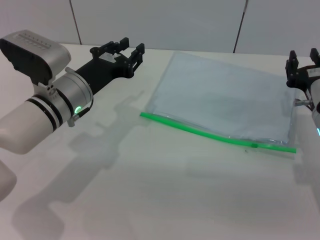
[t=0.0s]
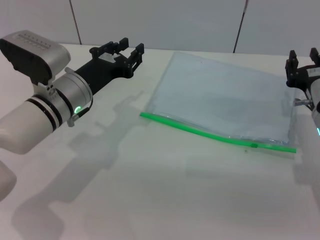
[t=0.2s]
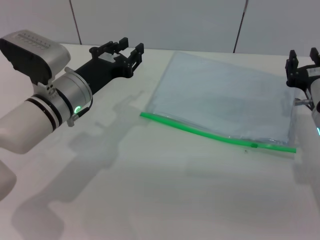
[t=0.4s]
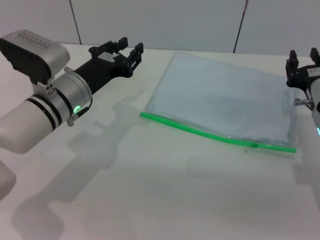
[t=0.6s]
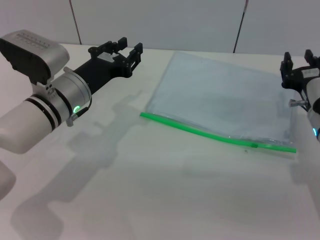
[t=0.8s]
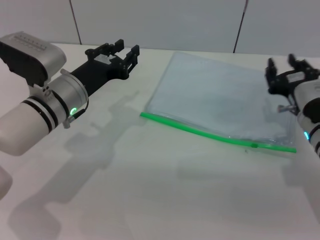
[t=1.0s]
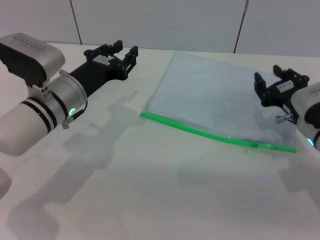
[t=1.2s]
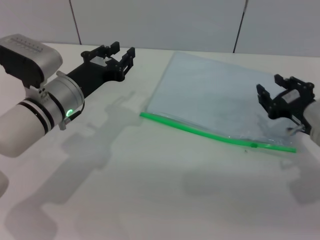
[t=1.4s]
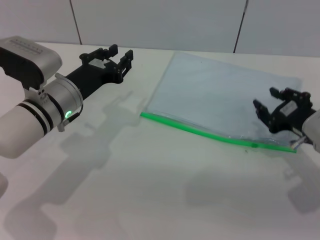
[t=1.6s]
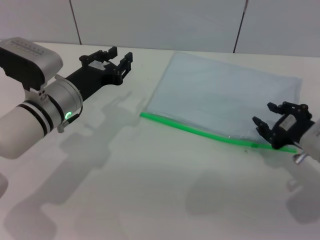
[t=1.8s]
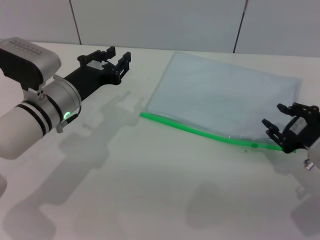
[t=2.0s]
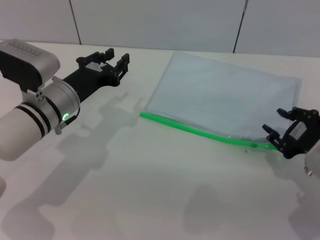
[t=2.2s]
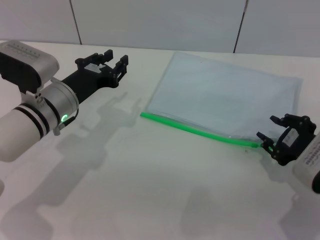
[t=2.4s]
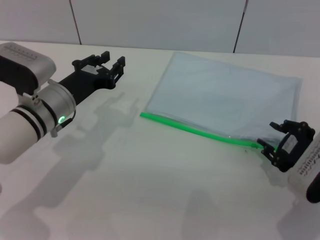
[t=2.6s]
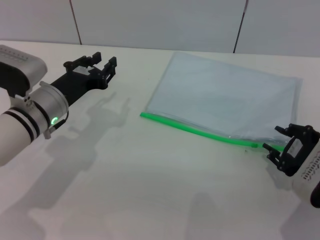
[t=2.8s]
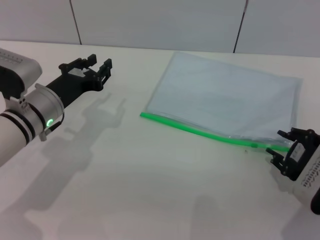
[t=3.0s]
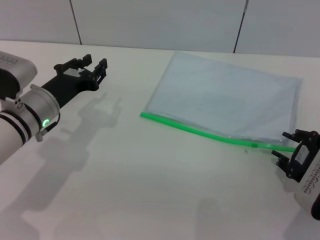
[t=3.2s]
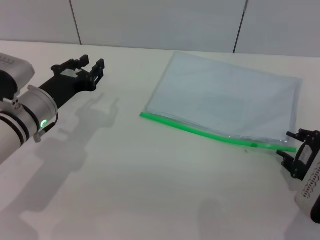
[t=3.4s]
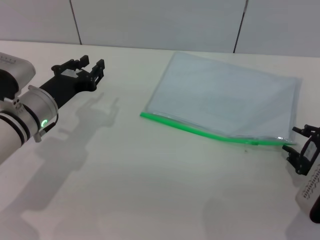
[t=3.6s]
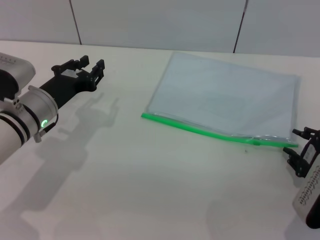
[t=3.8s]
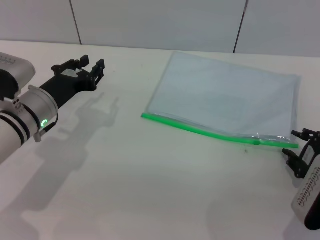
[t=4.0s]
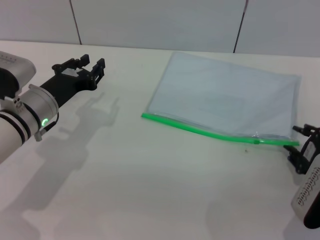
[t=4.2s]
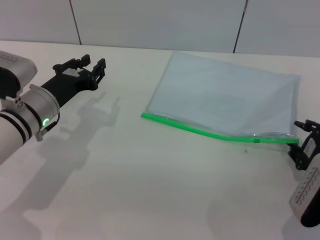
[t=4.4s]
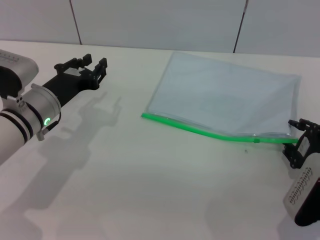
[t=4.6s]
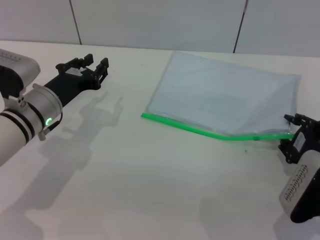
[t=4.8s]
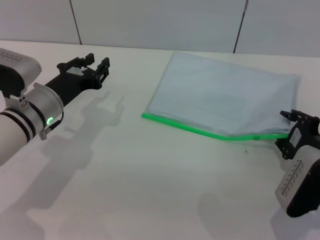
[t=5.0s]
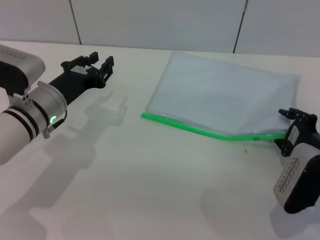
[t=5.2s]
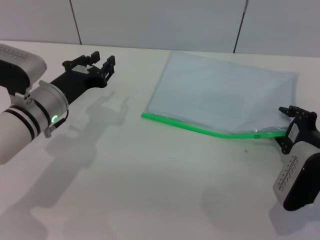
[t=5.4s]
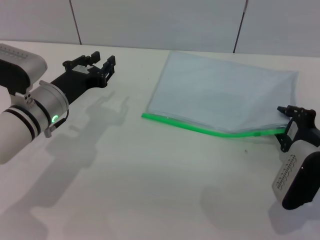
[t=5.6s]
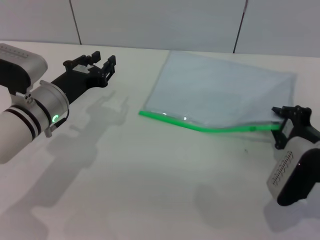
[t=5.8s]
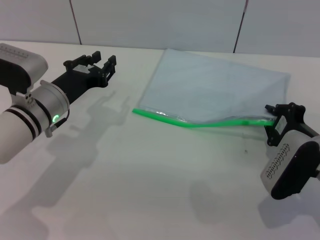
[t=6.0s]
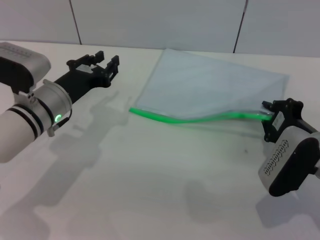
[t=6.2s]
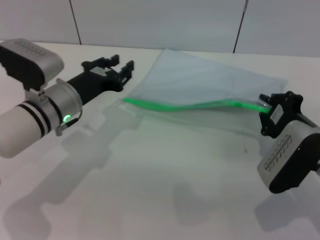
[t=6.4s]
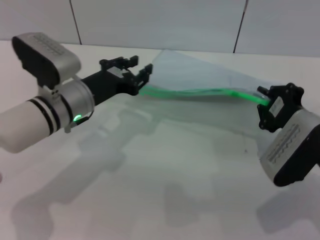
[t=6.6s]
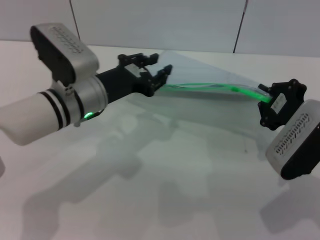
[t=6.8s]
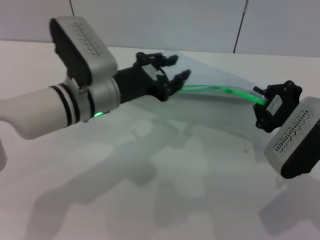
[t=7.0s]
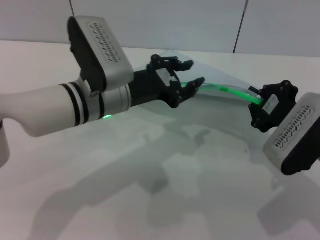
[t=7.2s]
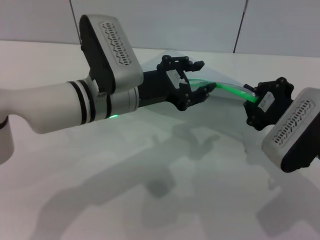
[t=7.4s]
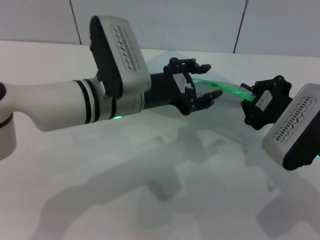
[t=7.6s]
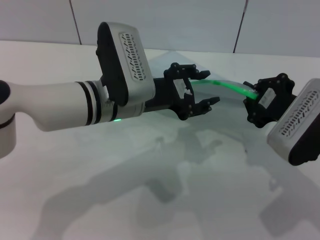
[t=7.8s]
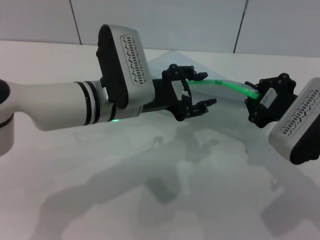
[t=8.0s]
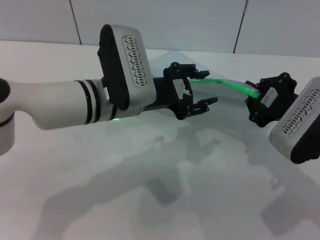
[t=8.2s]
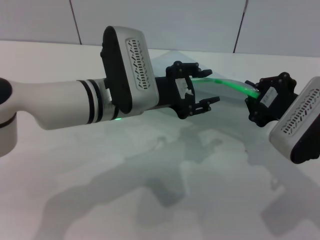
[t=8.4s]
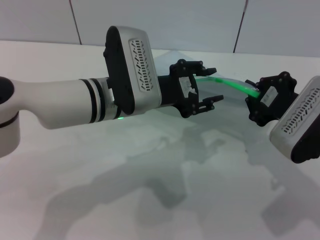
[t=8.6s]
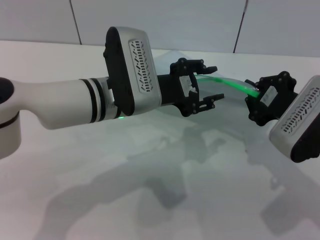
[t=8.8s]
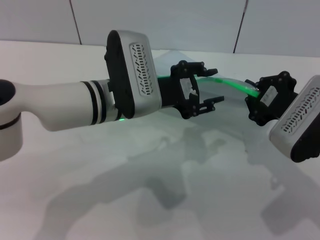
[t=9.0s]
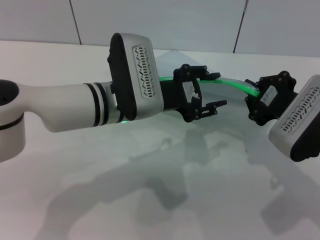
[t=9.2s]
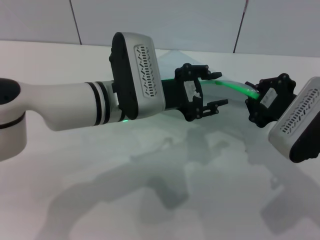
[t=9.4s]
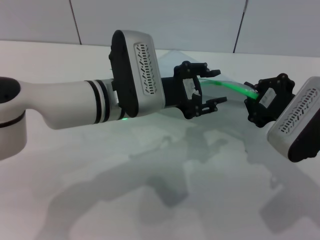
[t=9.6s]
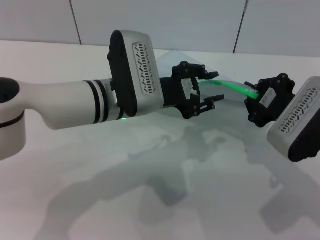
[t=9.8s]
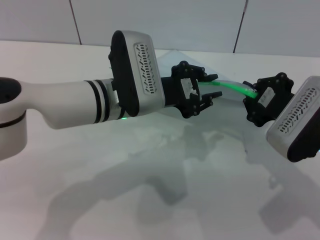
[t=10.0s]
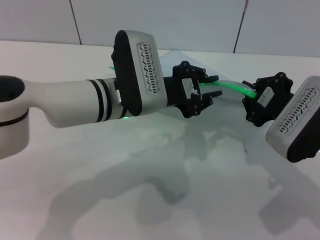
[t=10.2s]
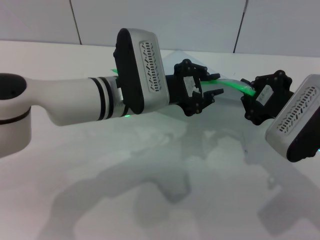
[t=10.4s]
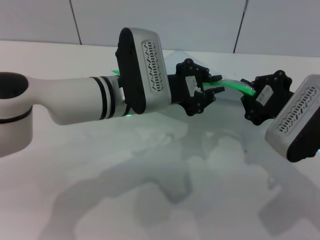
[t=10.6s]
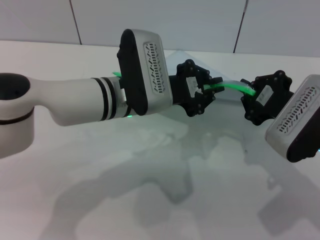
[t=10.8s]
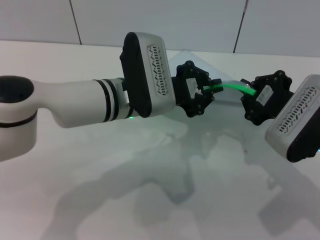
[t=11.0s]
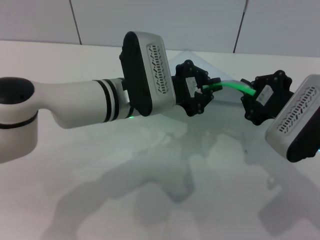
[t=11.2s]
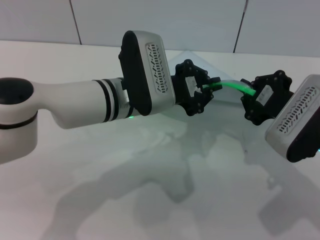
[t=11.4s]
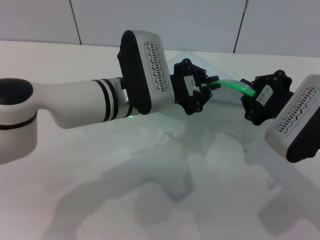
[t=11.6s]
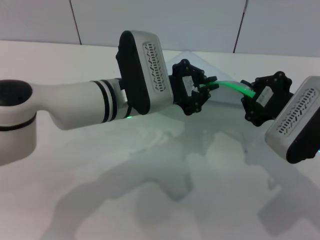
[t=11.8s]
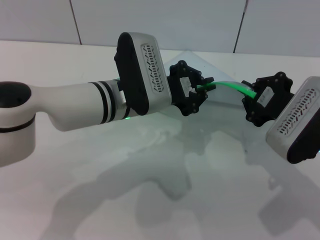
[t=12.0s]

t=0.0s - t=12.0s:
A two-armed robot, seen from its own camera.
Step, t=0.0s - t=6.8s: Pick up the transparent plastic bag with the right gripper.
t=1.6s - t=3.0s: The right gripper goes approximately 5 cm backward.
t=3.0s - t=4.4s: There are only small adjustments of the grippers.
t=4.4s - t=6.0s: The right gripper ends up roughly 5 cm from where it was, and closes its fingers.
t=6.0s - t=7.6s: The right gripper moves upward, roughly 10 cm. Meanwhile the left gripper is displaced to the right and upward by roughly 10 cm.
t=7.6s - t=9.0s: The grippers move only a little.
t=9.0s - t=10.4s: The left gripper closes.
t=10.4s - t=12.0s: The two grippers keep their place.

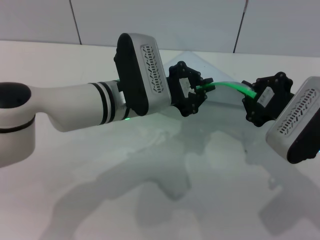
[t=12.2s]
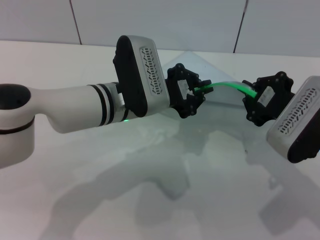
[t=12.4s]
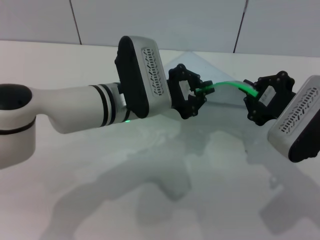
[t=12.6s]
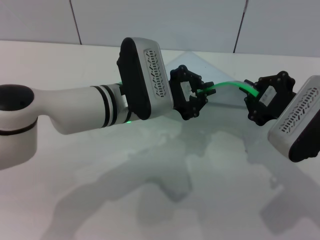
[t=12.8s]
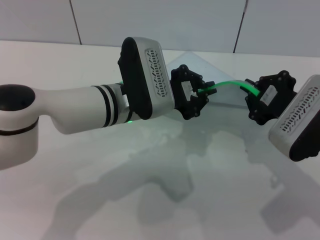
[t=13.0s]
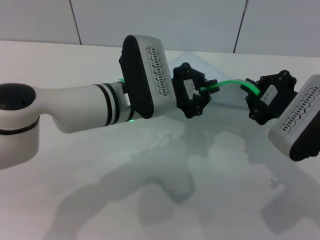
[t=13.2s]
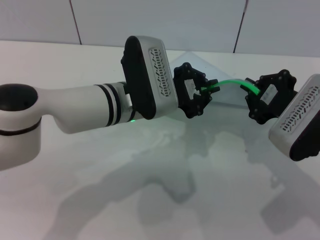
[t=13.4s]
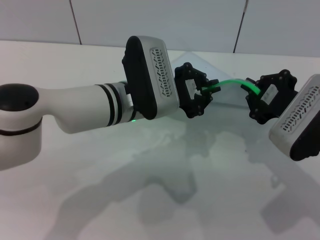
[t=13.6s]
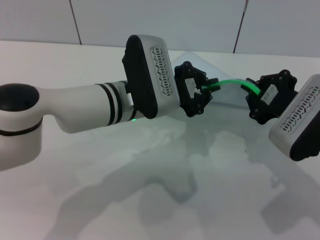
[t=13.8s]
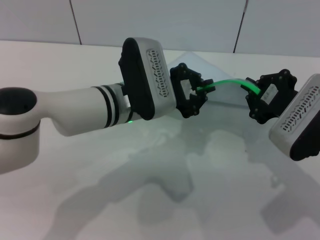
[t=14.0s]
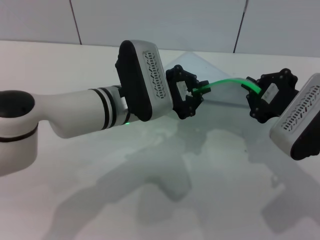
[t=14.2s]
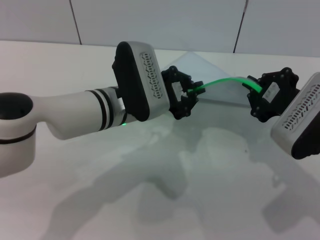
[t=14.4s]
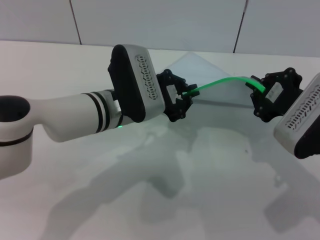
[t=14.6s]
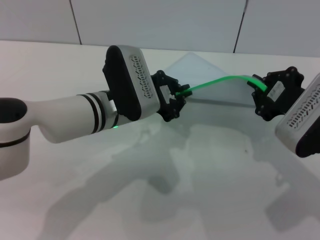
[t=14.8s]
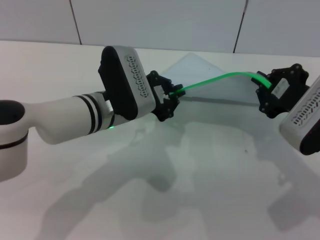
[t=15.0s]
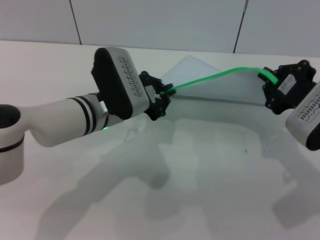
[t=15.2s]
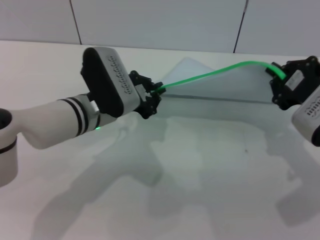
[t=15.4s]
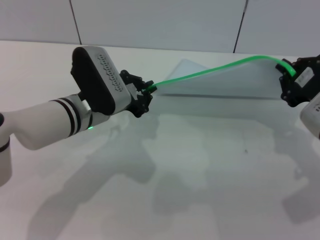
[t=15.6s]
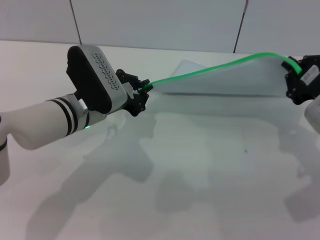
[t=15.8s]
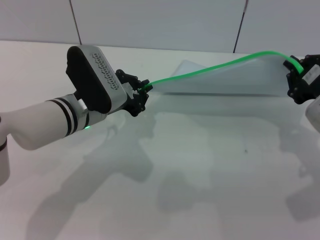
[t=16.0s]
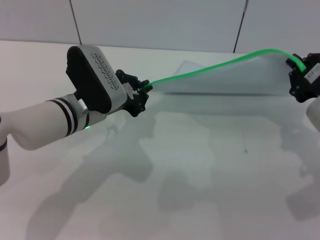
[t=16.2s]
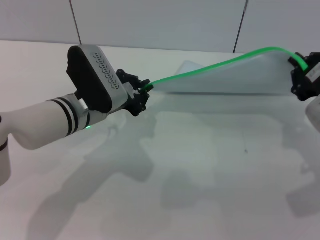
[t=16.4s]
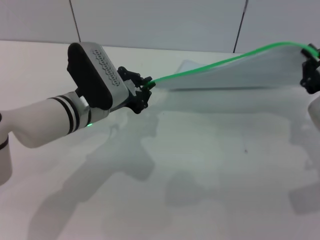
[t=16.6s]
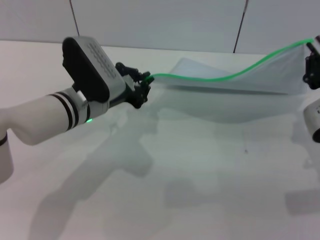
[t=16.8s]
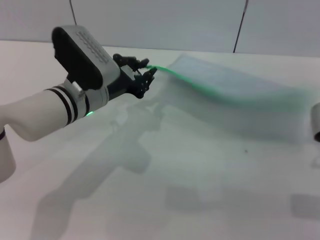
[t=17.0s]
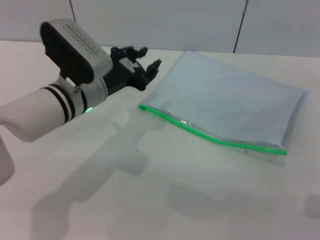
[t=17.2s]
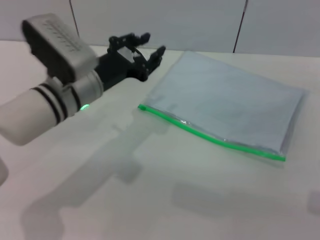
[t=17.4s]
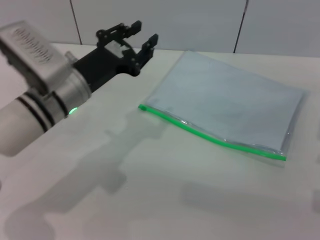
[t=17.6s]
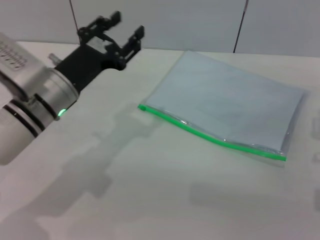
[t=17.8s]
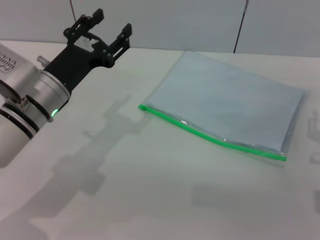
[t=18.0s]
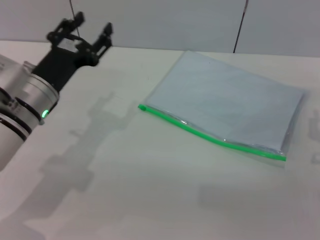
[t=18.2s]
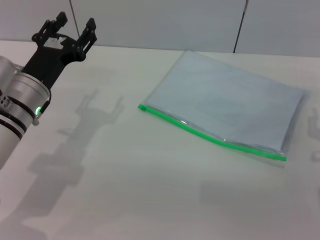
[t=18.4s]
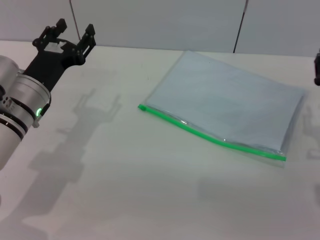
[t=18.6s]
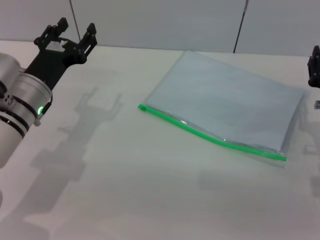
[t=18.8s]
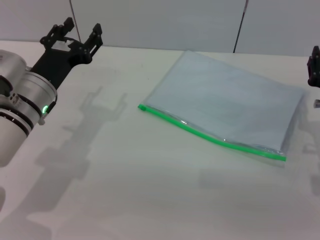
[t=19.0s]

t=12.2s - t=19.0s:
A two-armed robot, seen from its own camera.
Step, t=12.2s - t=16.8s: Pulling up the zipper on the transparent plastic bag with the left gripper to close it.
Step, t=17.0s - t=17.6s: Place the transparent plastic bag.
t=12.2s - t=13.6s: Both grippers stay put.
t=16.2s - t=17.6s: The right gripper opens up. Meanwhile the left gripper opens its fingers.
t=17.6s - t=19.0s: The left gripper changes place by about 5 cm, and opens its fingers.
